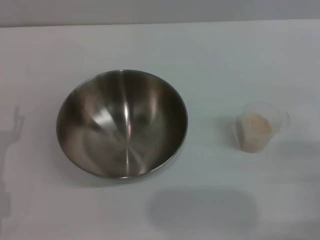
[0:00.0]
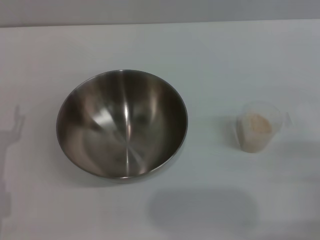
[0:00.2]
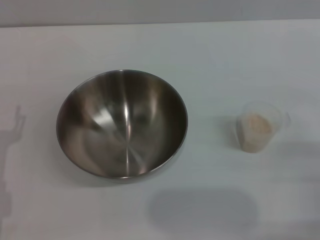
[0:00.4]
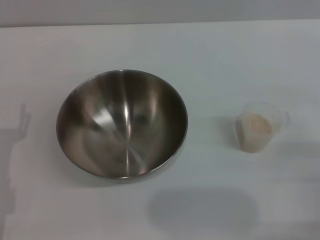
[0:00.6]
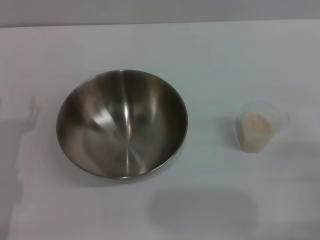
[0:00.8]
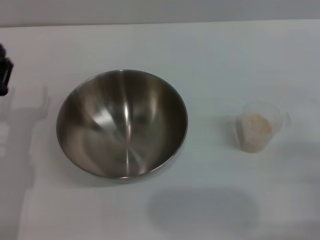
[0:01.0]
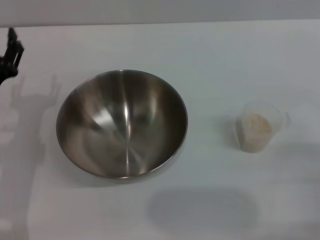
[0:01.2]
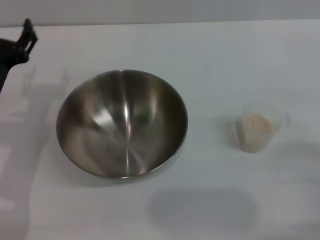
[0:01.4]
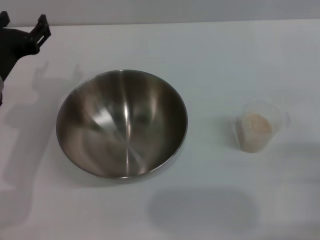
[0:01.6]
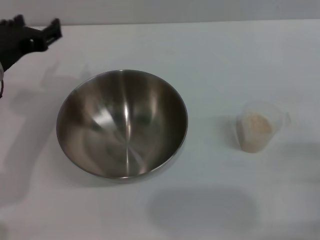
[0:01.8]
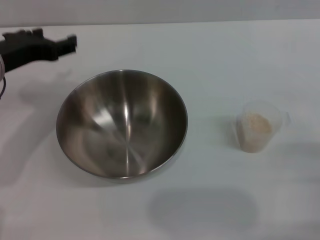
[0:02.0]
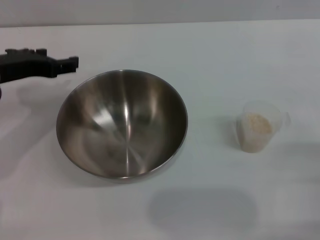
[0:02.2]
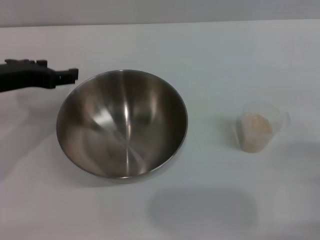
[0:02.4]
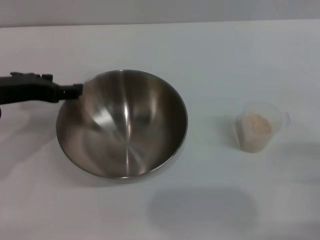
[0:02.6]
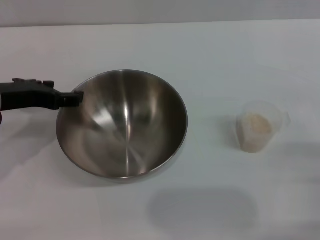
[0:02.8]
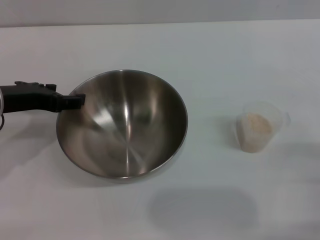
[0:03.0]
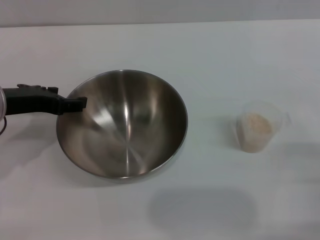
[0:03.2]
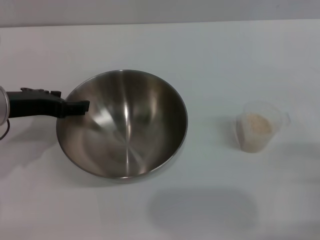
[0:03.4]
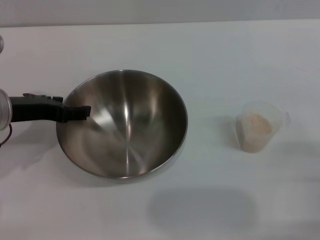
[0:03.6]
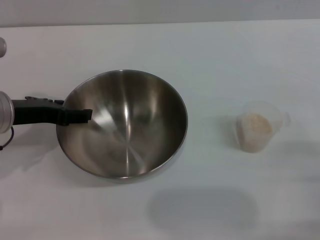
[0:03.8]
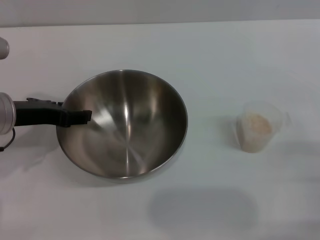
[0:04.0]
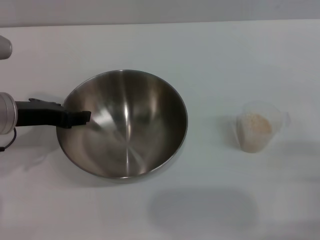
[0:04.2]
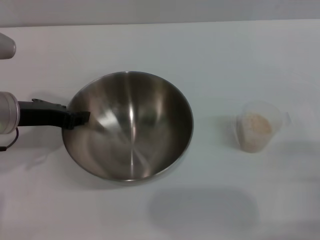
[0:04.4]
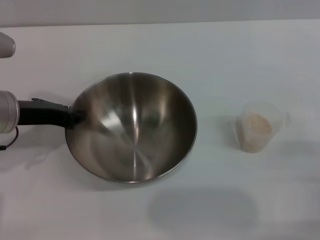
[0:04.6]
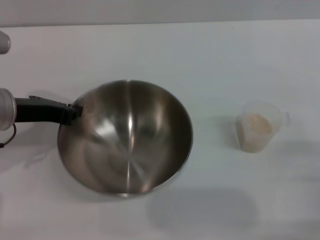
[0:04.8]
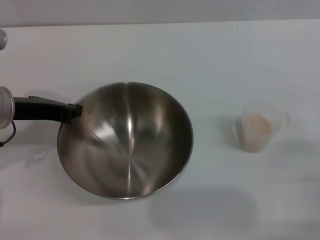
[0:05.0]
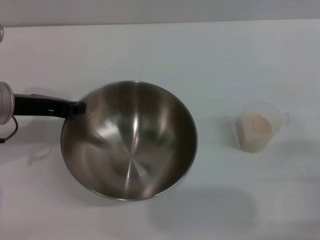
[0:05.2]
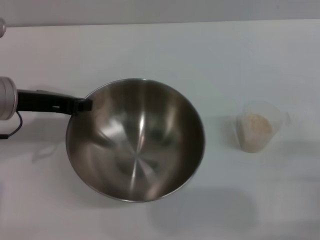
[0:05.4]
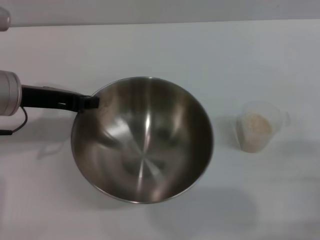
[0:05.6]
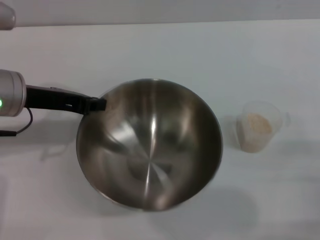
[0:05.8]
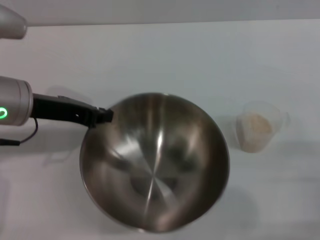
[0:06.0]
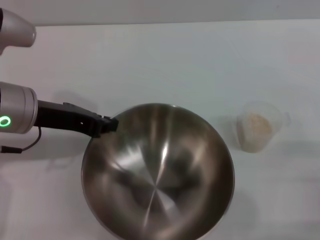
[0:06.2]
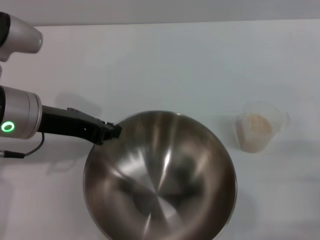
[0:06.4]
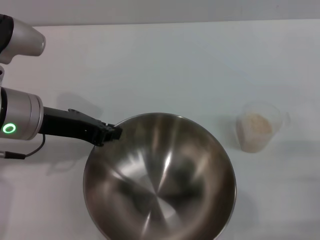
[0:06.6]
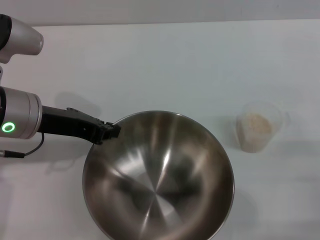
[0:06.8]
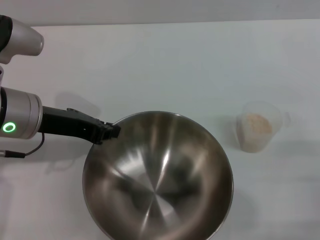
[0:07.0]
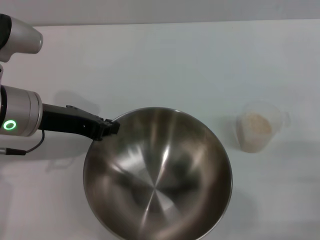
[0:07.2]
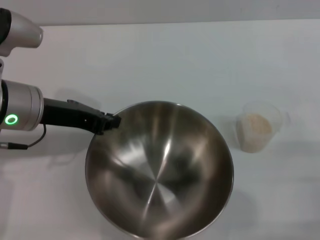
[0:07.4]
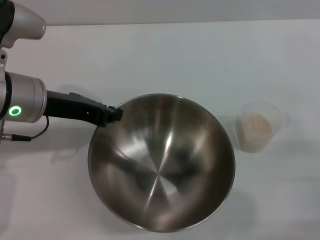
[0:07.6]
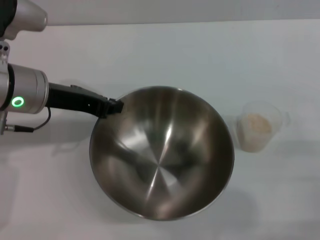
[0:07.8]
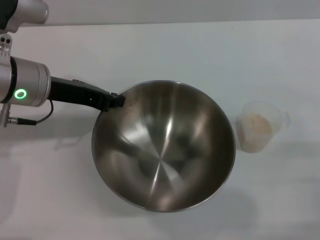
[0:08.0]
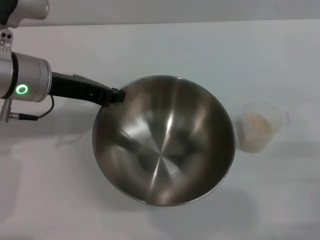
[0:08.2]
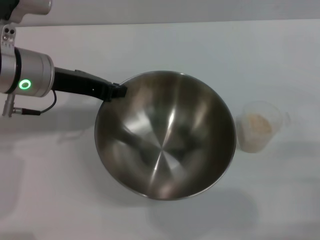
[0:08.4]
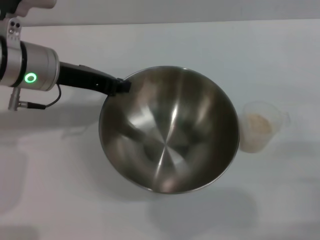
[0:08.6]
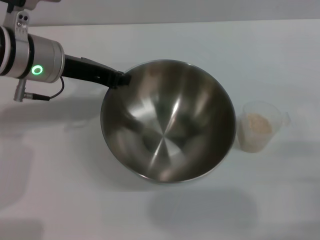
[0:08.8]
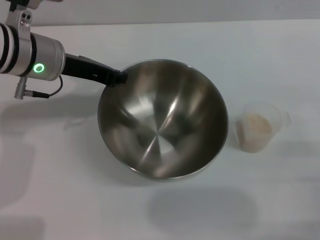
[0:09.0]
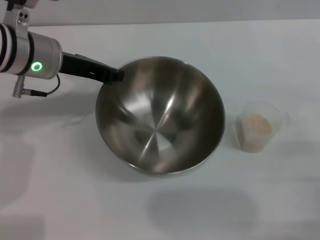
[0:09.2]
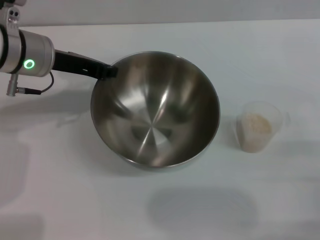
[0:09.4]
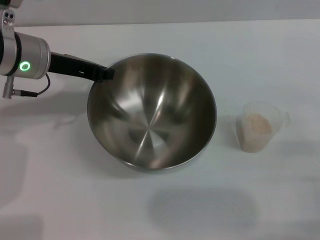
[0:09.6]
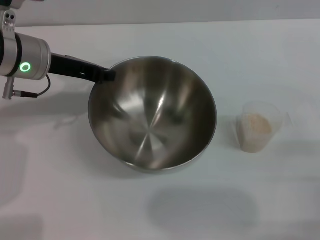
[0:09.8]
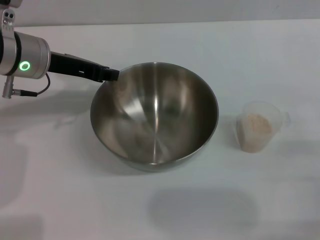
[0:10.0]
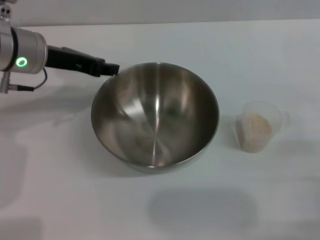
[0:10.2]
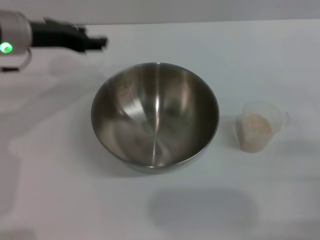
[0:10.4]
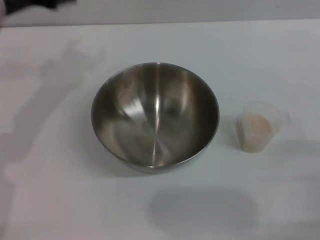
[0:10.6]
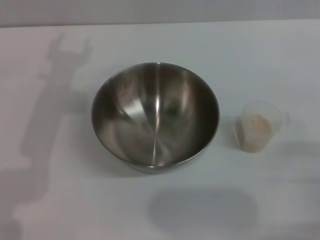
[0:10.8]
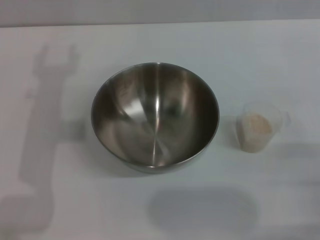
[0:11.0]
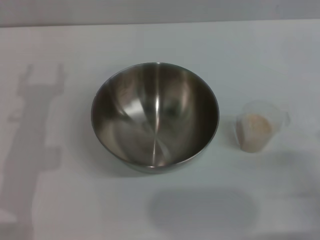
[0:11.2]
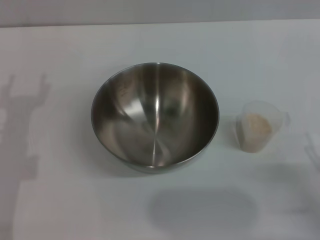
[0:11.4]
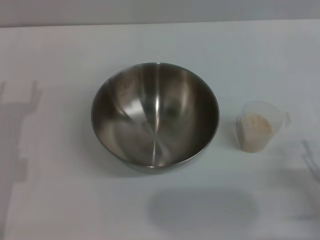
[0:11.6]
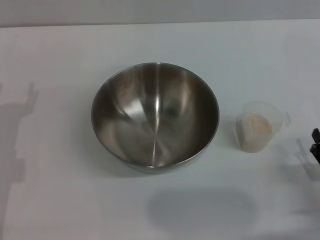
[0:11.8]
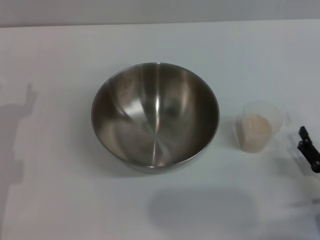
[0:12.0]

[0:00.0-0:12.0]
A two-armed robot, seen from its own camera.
Task of the whole recording: Place the bowl in the middle of the table with one hand and pour the rice from the grain cup into it with the other hand.
Step, 0:00.0 to 0:05.8: Pick up the bowl with the left gripper.
Step, 0:06.2 to 0:10.2: Place the bowl in the center of view with the left gripper.
0:00.0 to 0:01.6: The left gripper heads forward, upward and to the right, covering roughly 15 cm.
0:03.0 to 0:04.4: The grippers stay close to where they were, moving slightly.
0:04.4 to 0:06.0: The left gripper closes its fingers.
0:06.0 to 0:07.6: The grippers stay close to where they were, moving slightly.
0:07.6 to 0:09.0: The left gripper is displaced forward by some 5 cm.
0:09.0 to 0:10.4: The left gripper opens its fingers.
0:10.4 to 0:12.0: The right gripper travels downward by approximately 5 cm. The left gripper goes some 20 cm downward, backward and to the left, and opens.

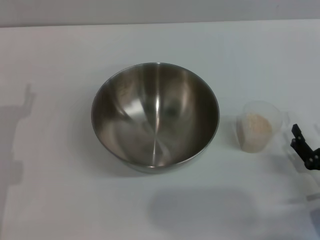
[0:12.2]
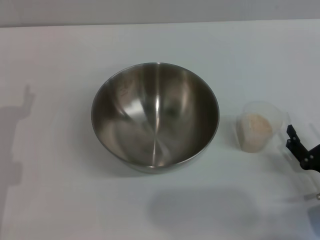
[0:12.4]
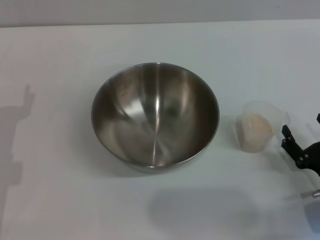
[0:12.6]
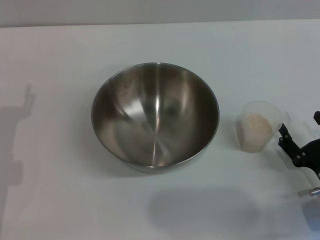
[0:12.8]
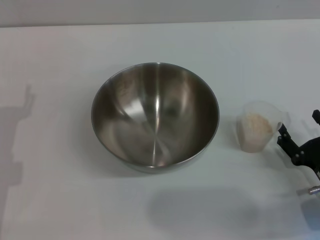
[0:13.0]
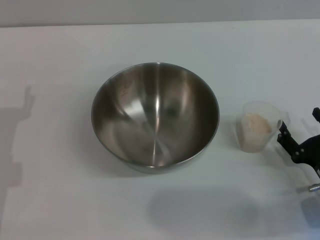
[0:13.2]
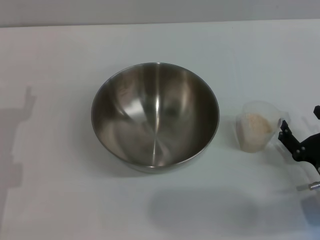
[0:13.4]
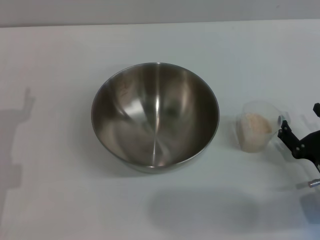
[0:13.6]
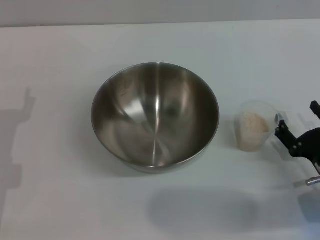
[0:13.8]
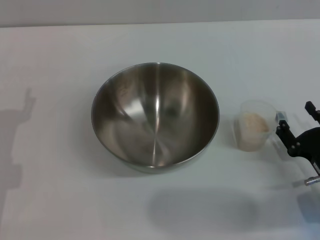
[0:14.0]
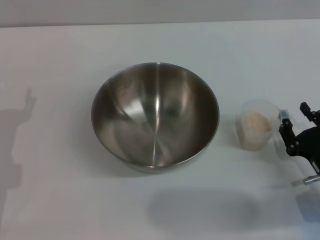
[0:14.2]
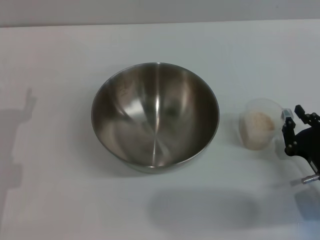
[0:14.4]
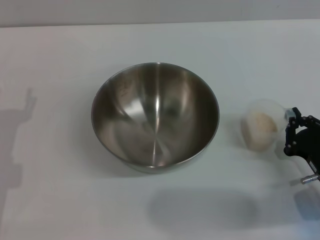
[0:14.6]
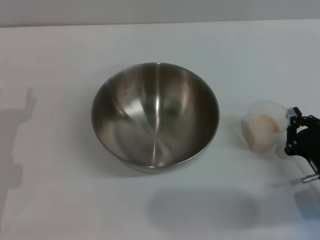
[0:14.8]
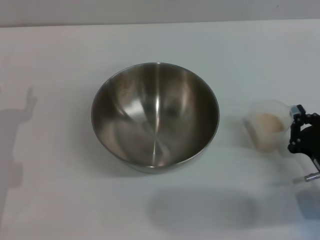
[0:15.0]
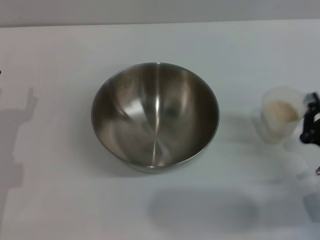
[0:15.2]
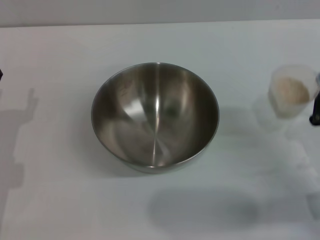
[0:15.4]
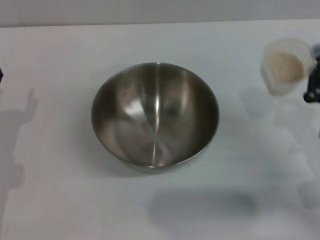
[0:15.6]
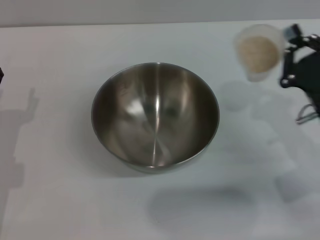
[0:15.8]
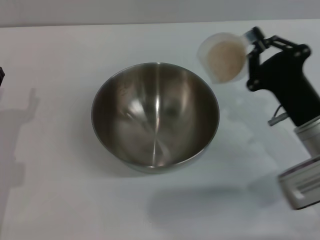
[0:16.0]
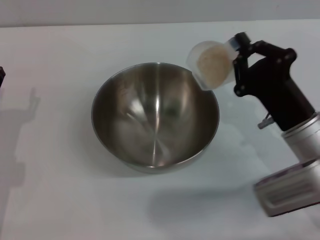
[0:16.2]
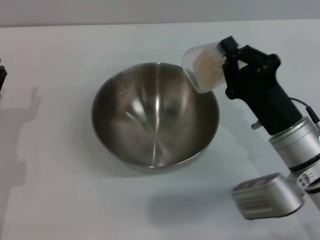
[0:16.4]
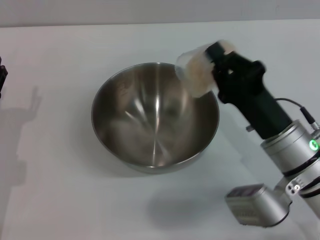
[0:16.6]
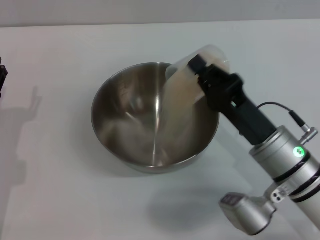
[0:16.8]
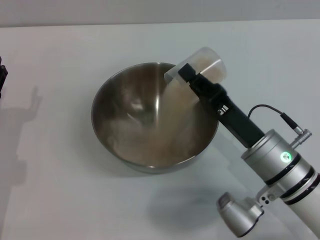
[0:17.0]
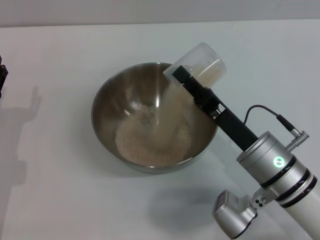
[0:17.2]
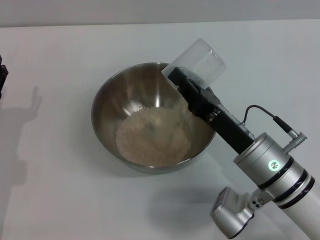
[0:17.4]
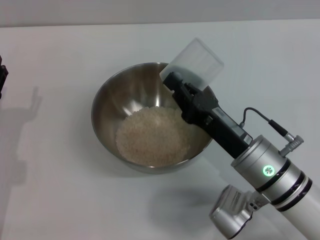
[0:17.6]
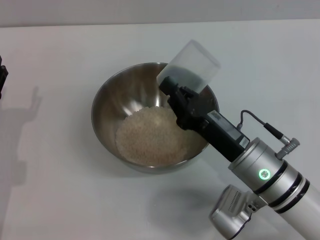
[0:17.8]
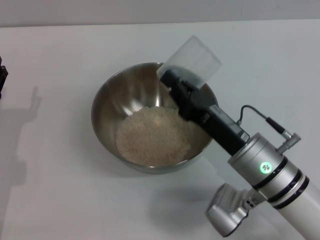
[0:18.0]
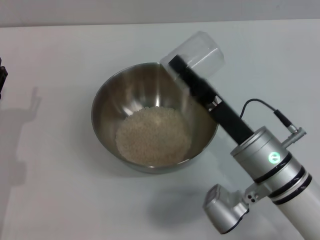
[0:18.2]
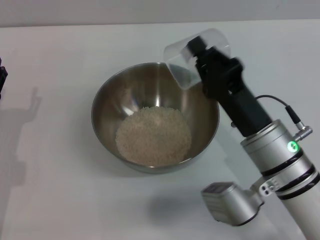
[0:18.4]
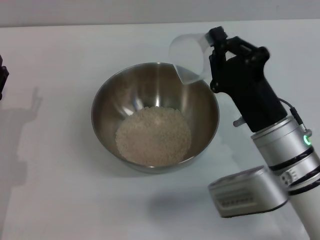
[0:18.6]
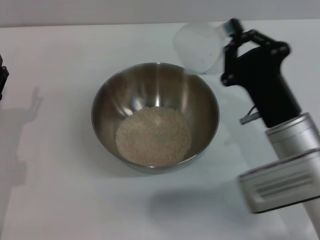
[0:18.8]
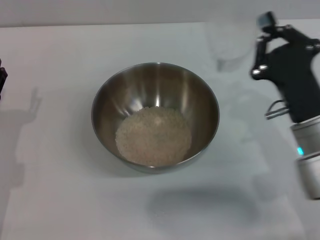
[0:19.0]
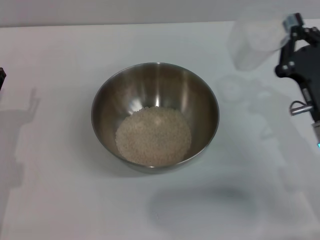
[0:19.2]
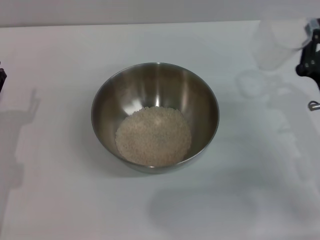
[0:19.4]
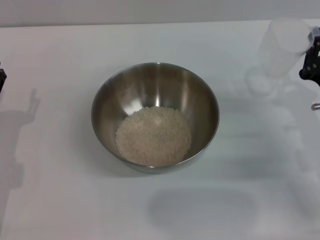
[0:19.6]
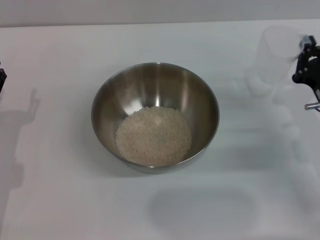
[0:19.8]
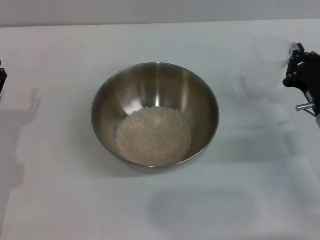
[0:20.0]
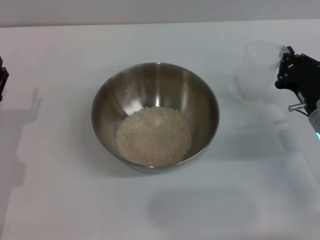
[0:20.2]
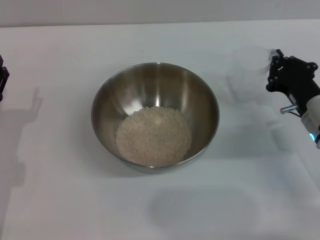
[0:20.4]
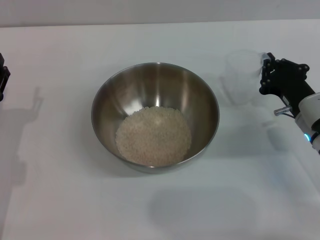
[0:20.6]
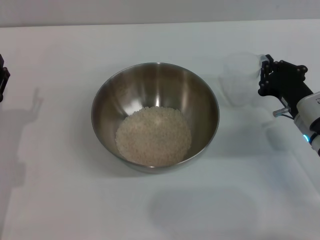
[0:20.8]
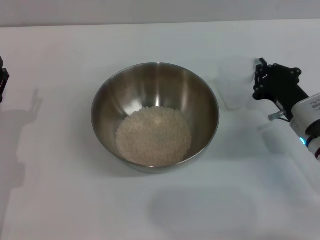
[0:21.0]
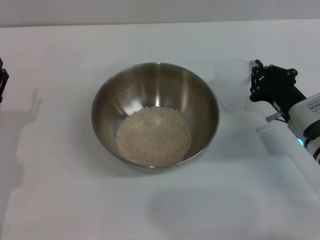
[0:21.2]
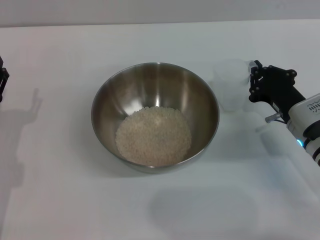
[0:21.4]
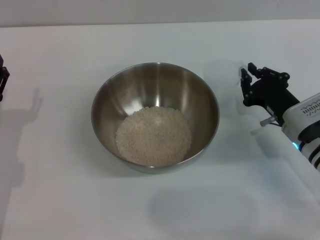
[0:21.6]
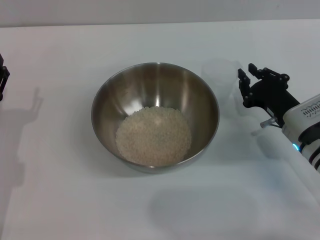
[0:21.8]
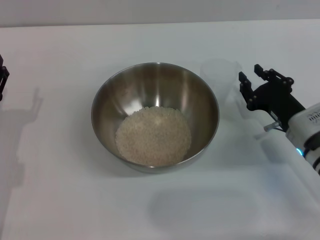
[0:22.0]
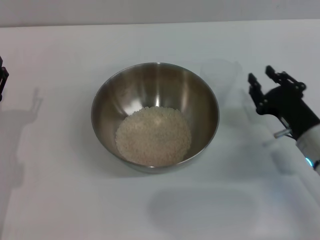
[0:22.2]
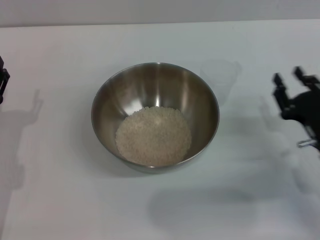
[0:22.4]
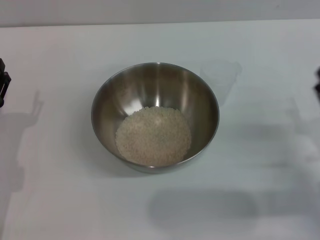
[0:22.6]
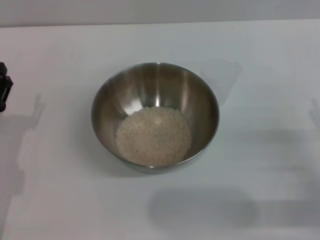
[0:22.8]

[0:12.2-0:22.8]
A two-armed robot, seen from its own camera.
Task of the whole recording: Place the bowl in the middle of the table with one hand and pour the rice from the grain cup into it with the other hand.
Step, 0:12.2 to 0:15.4: Pick up the cup with rice in it with the right gripper.
Step, 0:15.6 to 0:18.2: Pour the rice from the cup into the bowl with the right gripper.
Step, 0:18.4 to 0:22.0: Place the cup on the table with the right gripper.
0:12.2 to 0:13.8: The grippers move only a little.
0:13.8 to 0:15.2: The right gripper closes.
0:15.2 to 0:16.8: The right gripper is displaced to the left by about 10 cm.
0:18.2 to 0:19.8: The right gripper goes roughly 15 cm to the right.
0:19.8 to 0:21.2: The grippers move only a little.
0:21.2 to 0:22.8: The right gripper shifts roughly 15 cm backward and to the right, and opens.
